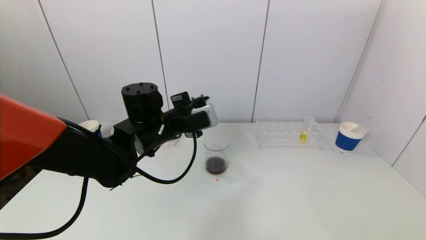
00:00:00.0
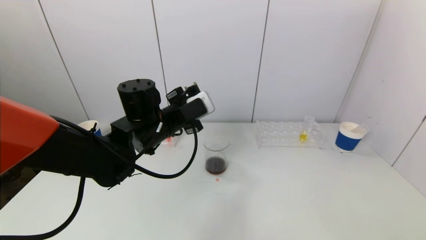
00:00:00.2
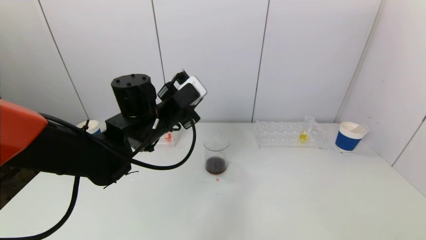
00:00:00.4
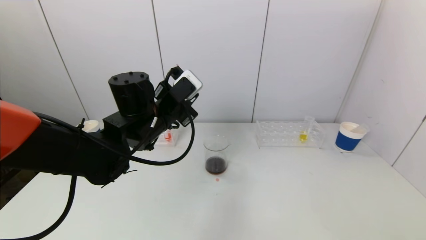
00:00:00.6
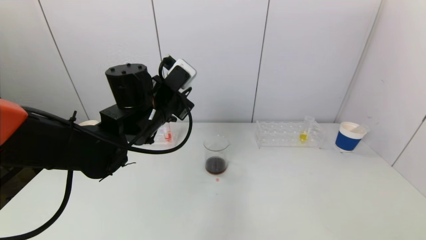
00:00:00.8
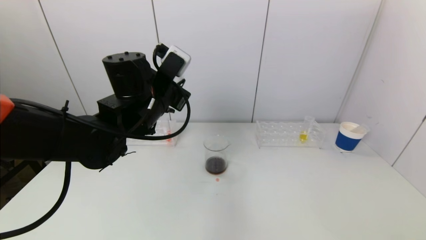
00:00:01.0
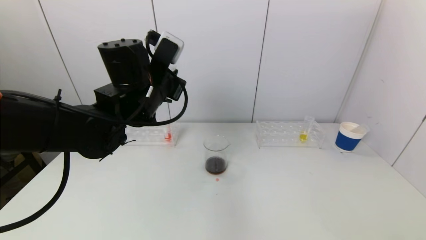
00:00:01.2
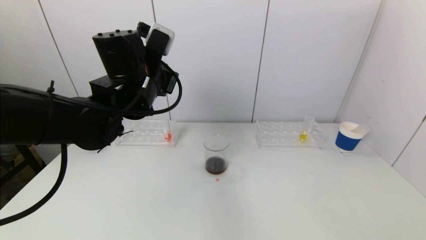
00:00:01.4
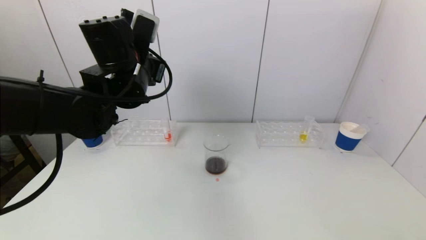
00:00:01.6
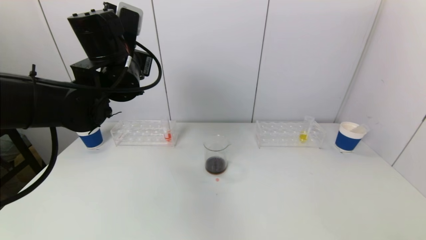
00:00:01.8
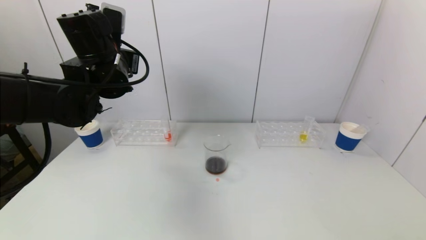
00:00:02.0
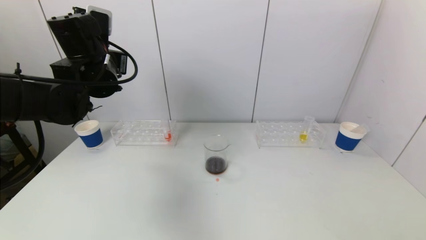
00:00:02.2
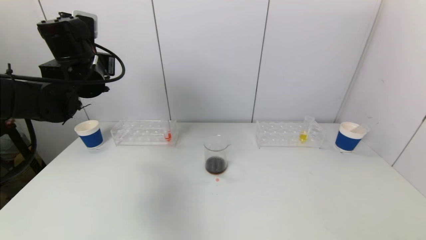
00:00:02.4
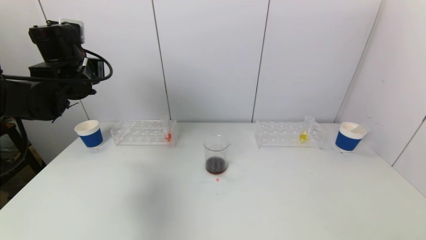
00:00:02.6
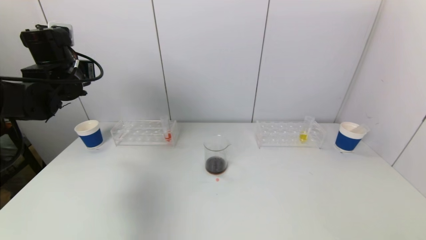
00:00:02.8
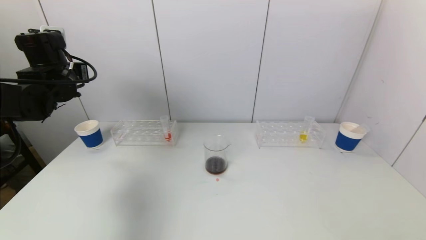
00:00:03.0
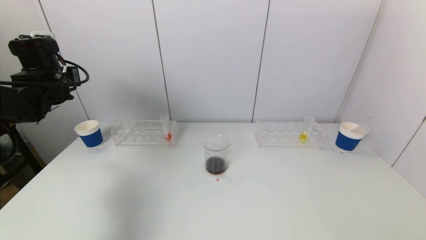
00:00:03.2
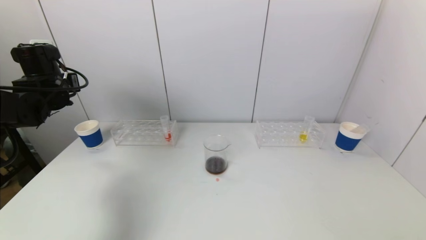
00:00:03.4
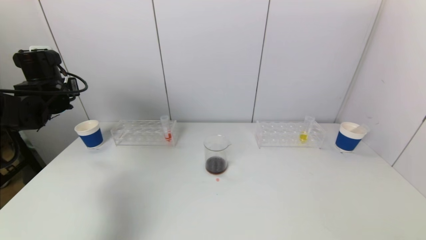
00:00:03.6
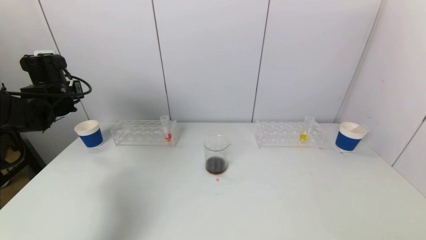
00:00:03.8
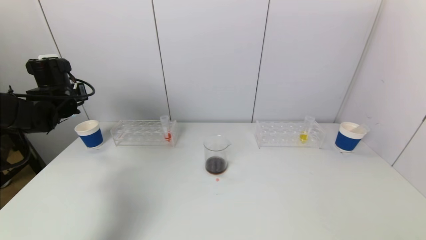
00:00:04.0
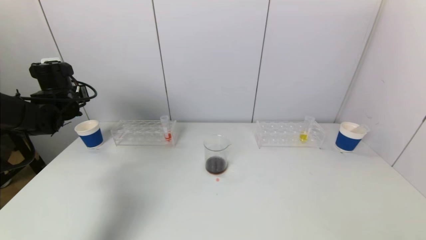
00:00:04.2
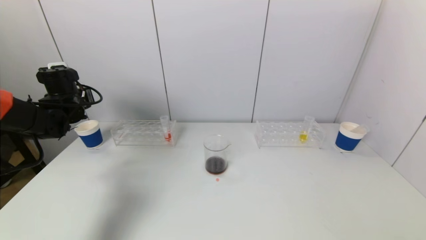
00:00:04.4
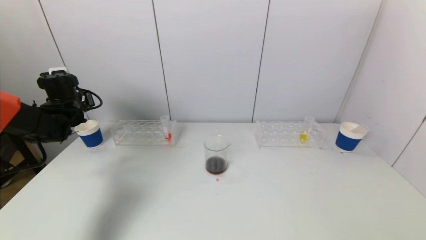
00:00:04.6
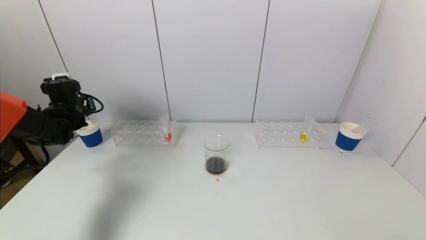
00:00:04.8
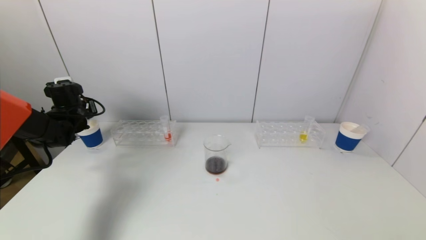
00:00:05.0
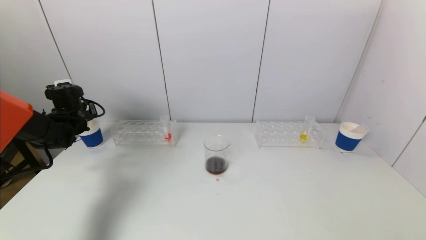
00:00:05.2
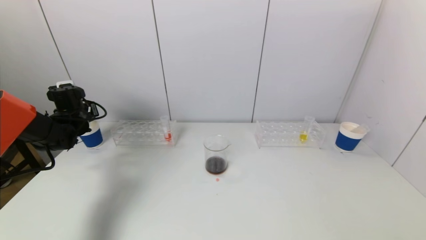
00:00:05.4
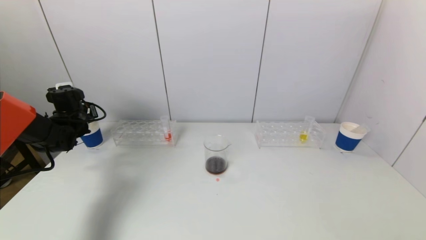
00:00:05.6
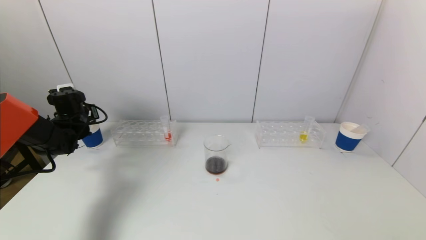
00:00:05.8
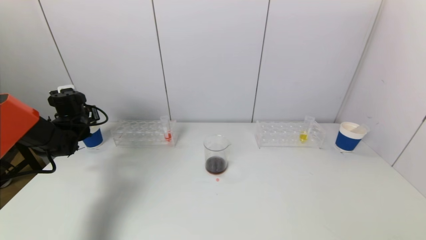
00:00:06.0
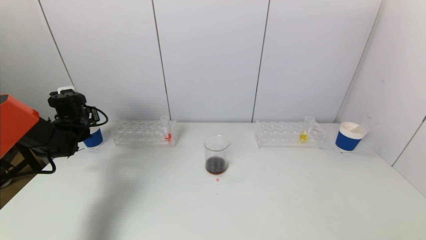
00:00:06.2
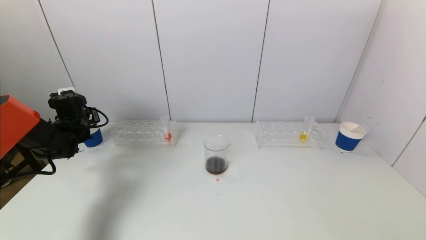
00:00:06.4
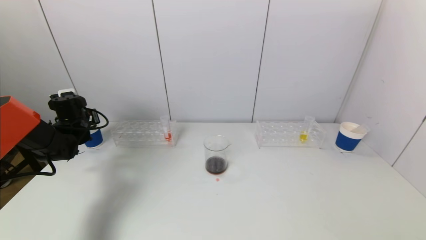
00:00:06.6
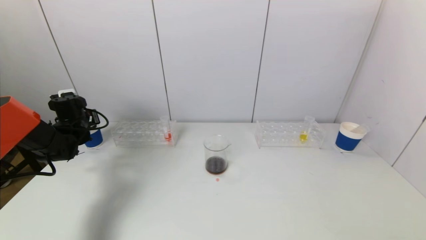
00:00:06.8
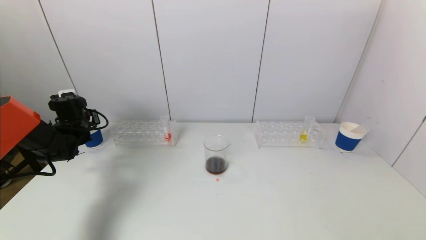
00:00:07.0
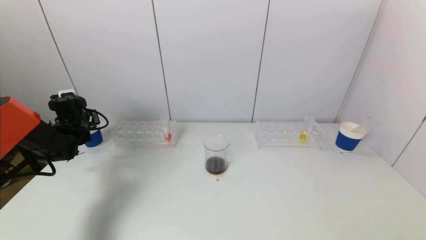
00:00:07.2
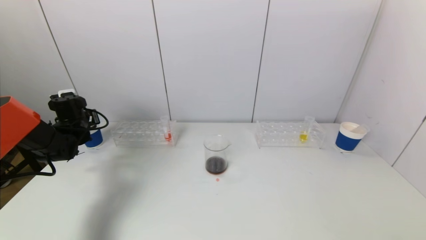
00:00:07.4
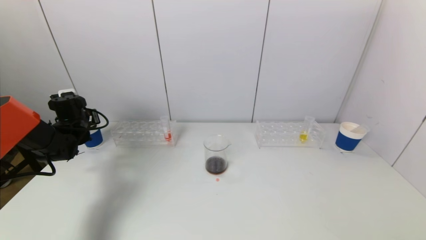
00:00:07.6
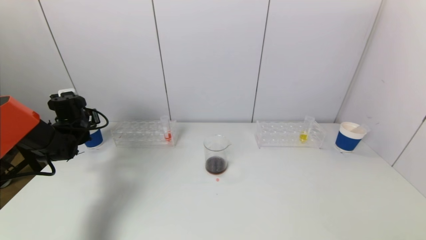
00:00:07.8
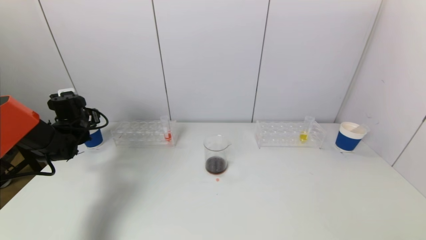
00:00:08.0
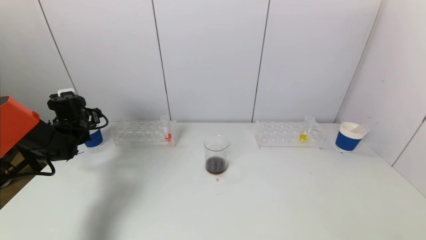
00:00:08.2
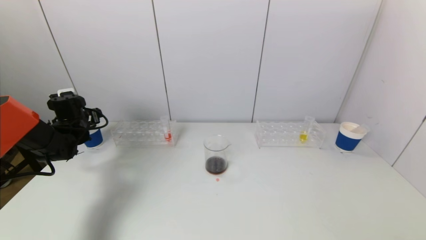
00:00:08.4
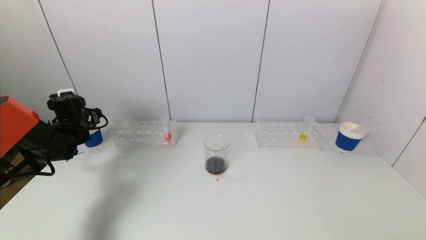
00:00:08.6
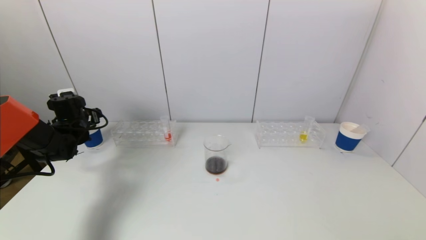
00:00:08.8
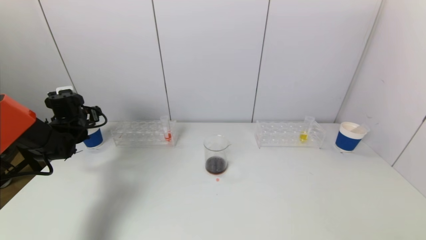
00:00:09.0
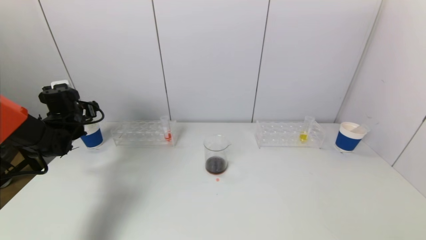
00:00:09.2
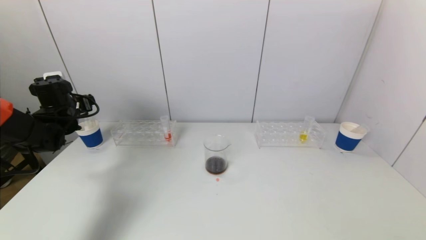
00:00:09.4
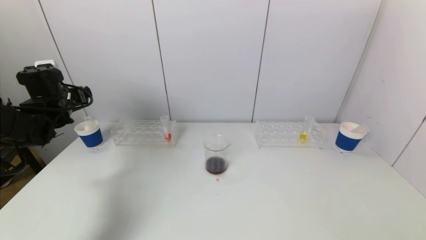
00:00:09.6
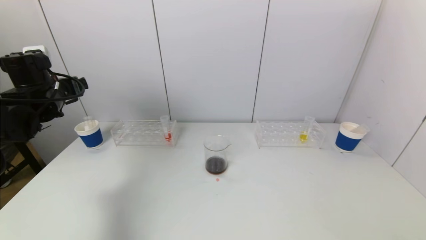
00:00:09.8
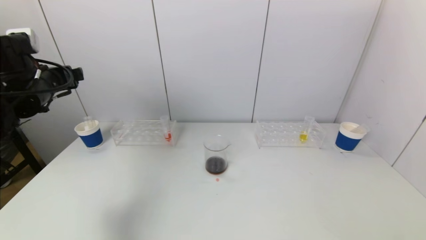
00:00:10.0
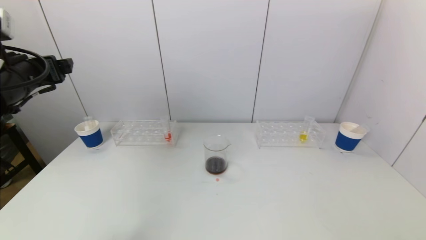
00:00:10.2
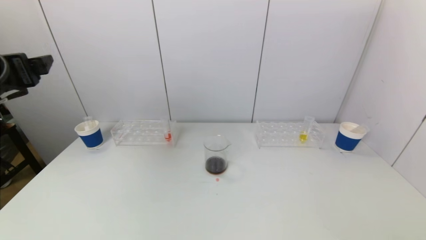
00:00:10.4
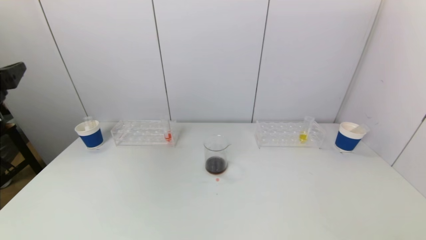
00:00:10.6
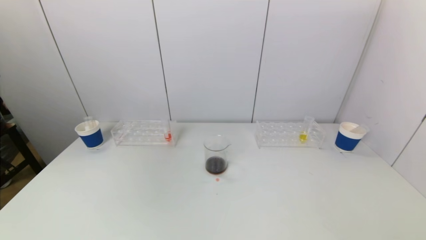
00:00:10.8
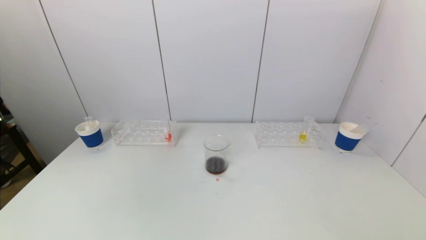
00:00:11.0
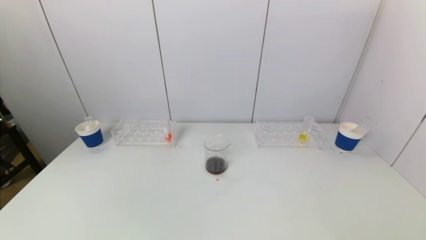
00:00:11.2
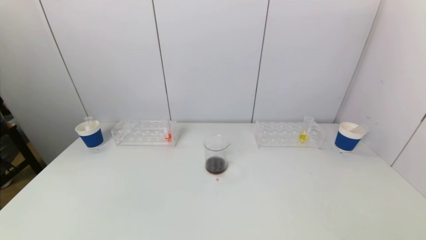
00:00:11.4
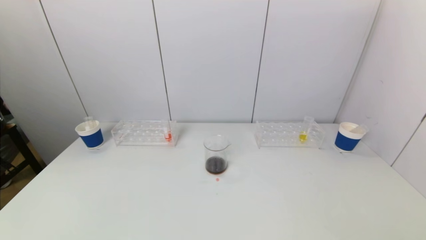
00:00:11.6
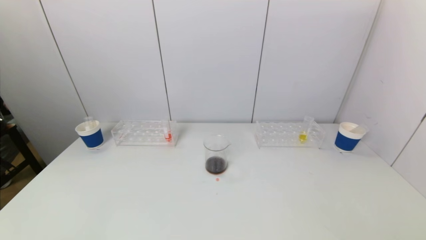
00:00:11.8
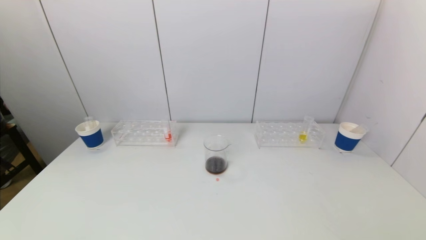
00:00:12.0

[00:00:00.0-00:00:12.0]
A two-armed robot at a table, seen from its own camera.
Task of the whole recording: pick up a test tube with pigment on left test tube rack and a test tube with pigment on right test tube rack by grippers and pour them into the beaker.
Step, 00:00:00.0 to 00:00:08.4: Place the test tube into the paper cup with the left gripper.
00:00:00.0 to 00:00:01.6: The left gripper shifts some 10 cm upward.
00:00:01.6 to 00:00:03.0: The left gripper goes roughly 20 cm to the left.
00:00:03.0 to 00:00:04.4: The left gripper is displaced downward by approximately 10 cm.
00:00:04.4 to 00:00:06.0: The left gripper is displaced downward by roughly 5 cm.
00:00:06.0 to 00:00:07.6: Both grippers stay put.
00:00:07.6 to 00:00:09.0: The left gripper opens up.
00:00:09.0 to 00:00:10.4: The left gripper travels backward and upward by about 30 cm.
00:00:10.4 to 00:00:12.0: The left gripper heads backward and downward, covering approximately 30 cm.

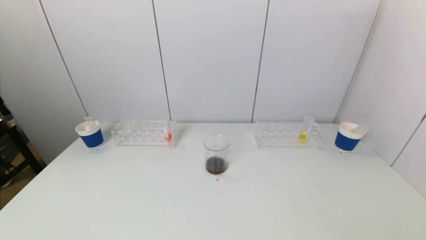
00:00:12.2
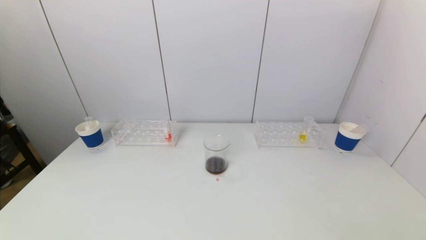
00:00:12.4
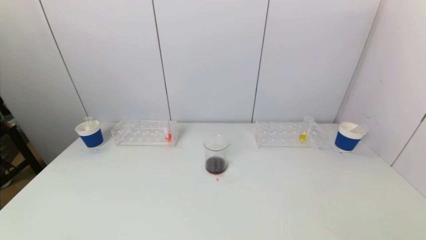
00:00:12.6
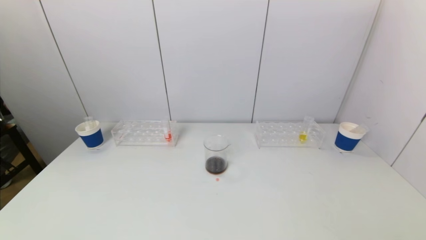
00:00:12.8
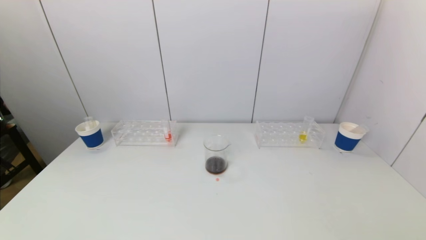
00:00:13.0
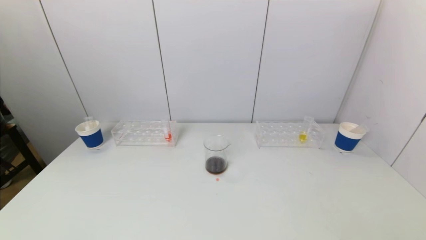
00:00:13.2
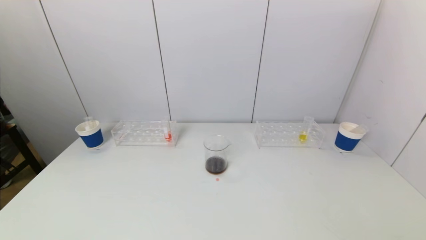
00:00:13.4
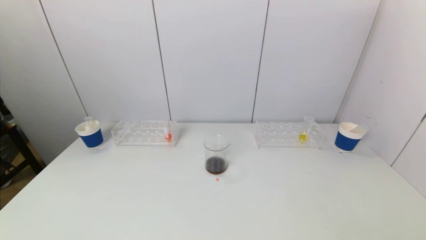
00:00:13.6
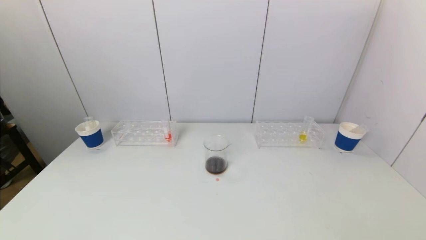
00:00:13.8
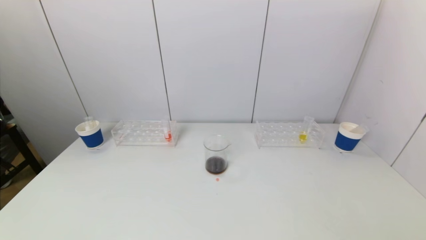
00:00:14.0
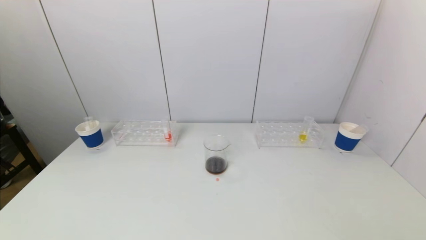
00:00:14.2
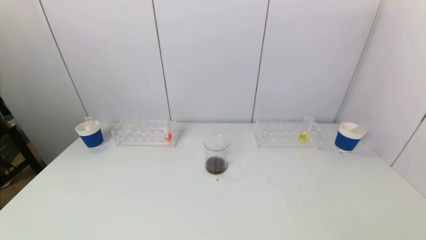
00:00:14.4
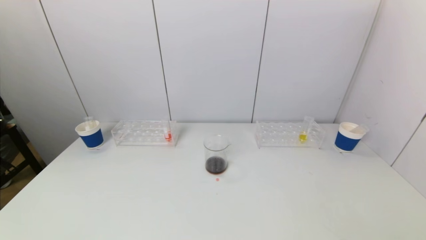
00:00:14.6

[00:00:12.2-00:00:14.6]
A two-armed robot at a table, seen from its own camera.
Task of the whole recording: pick up a test tube with pigment on left test tube rack and a test tube with pigment on right test tube rack by grippers and pour them into the beaker.
00:00:13.4 to 00:00:14.6: Both grippers stay about where they are.
